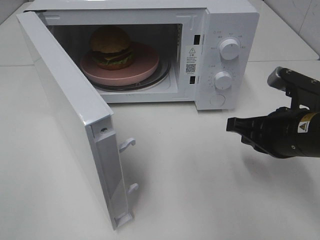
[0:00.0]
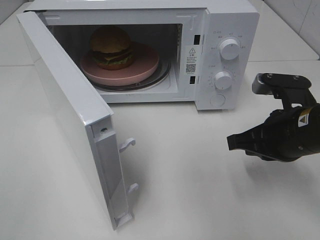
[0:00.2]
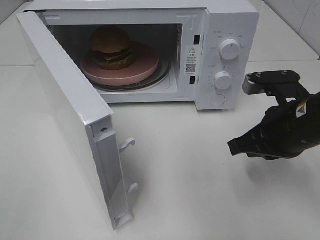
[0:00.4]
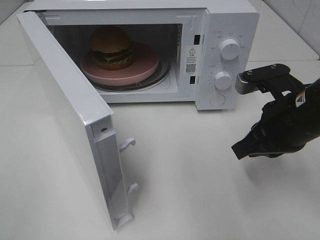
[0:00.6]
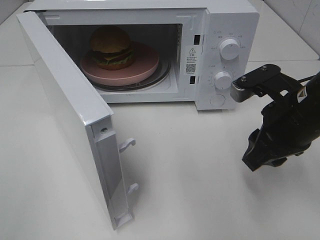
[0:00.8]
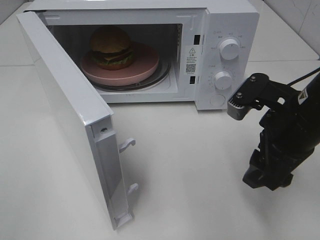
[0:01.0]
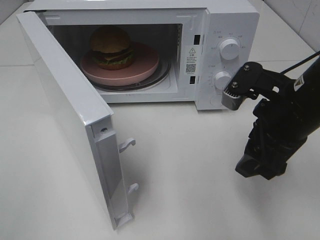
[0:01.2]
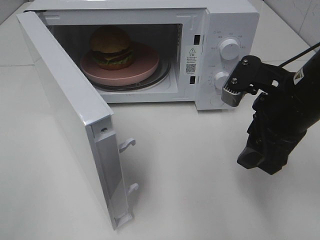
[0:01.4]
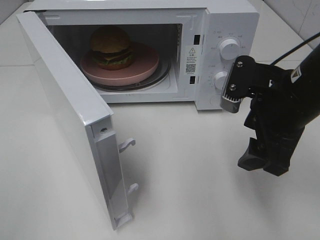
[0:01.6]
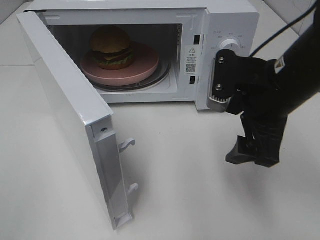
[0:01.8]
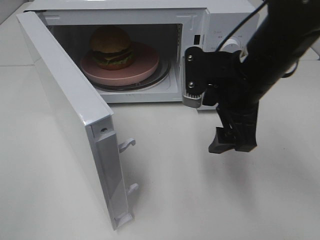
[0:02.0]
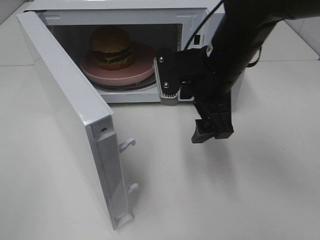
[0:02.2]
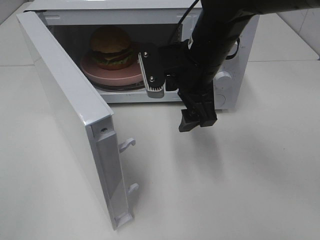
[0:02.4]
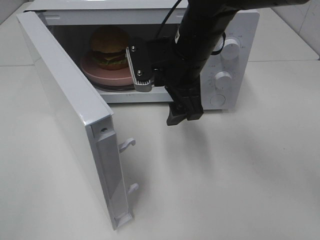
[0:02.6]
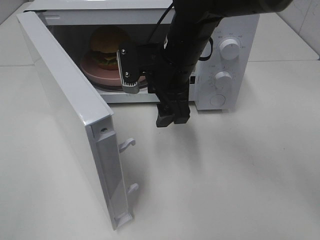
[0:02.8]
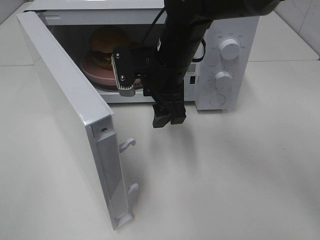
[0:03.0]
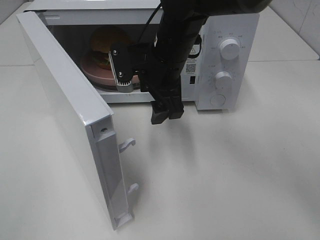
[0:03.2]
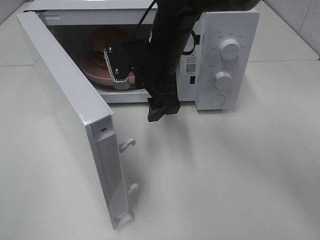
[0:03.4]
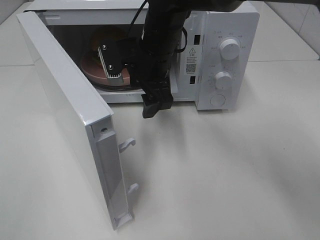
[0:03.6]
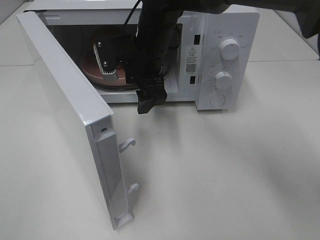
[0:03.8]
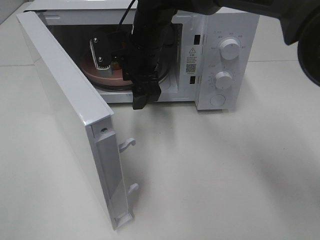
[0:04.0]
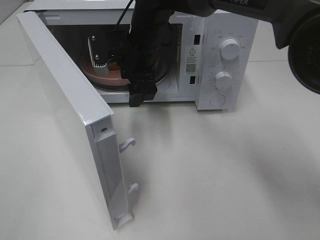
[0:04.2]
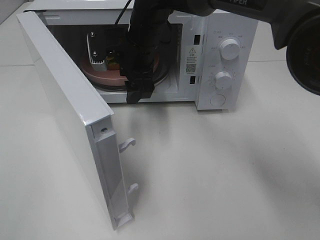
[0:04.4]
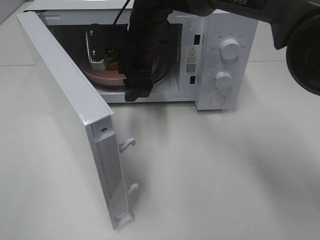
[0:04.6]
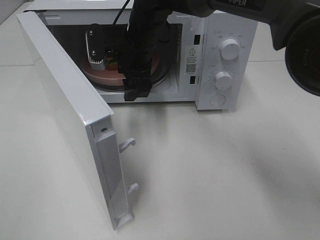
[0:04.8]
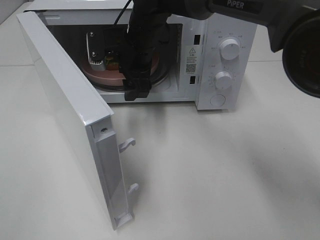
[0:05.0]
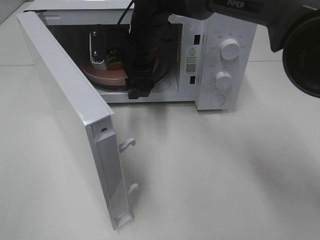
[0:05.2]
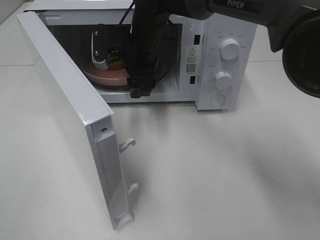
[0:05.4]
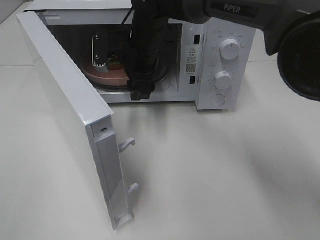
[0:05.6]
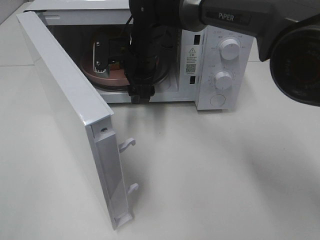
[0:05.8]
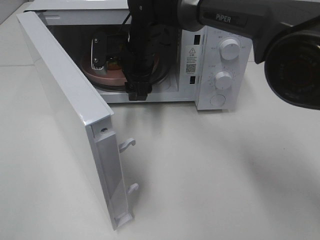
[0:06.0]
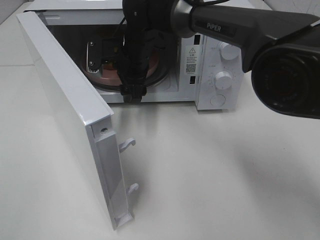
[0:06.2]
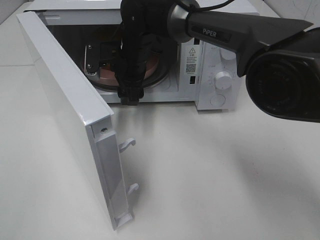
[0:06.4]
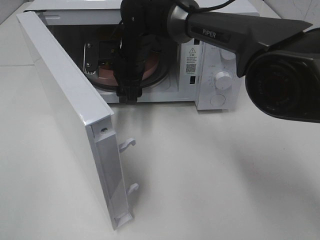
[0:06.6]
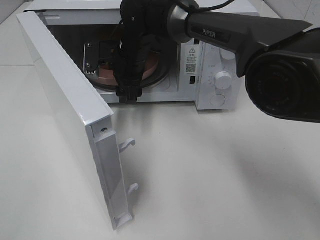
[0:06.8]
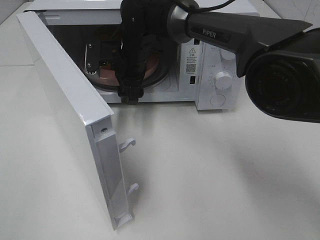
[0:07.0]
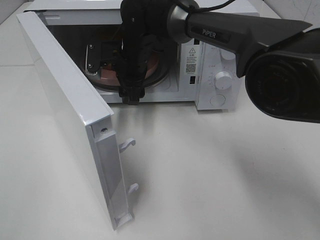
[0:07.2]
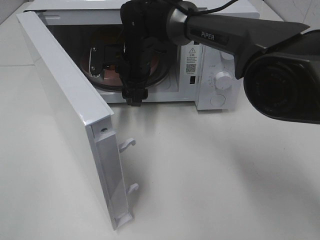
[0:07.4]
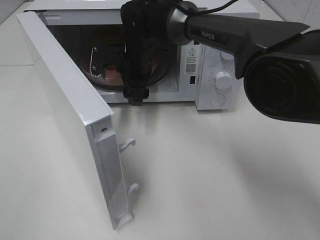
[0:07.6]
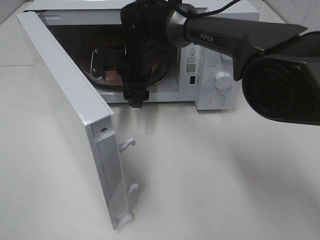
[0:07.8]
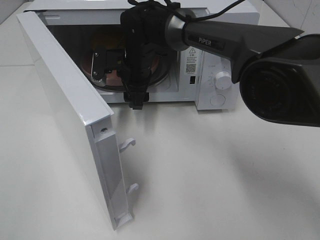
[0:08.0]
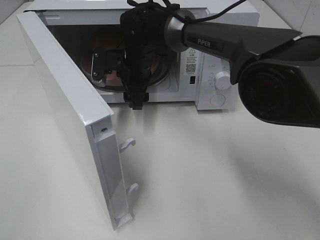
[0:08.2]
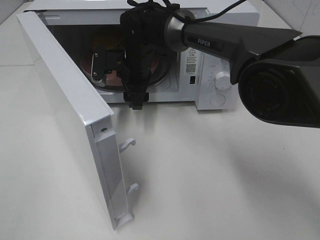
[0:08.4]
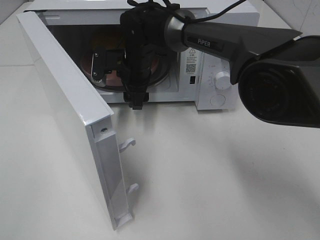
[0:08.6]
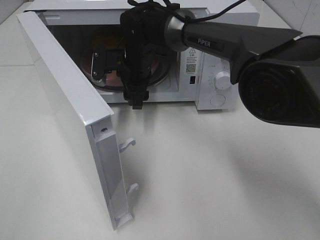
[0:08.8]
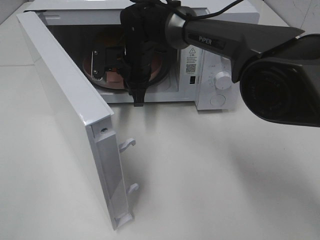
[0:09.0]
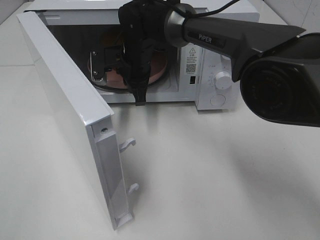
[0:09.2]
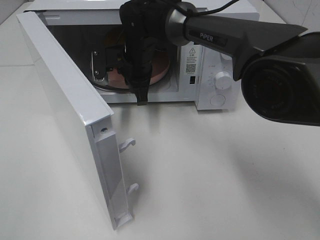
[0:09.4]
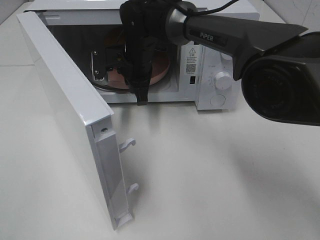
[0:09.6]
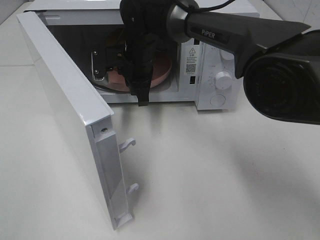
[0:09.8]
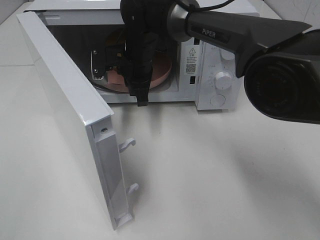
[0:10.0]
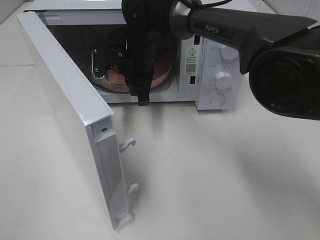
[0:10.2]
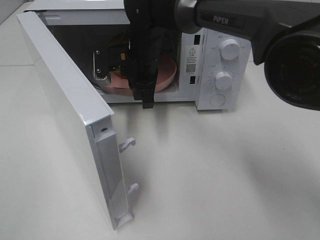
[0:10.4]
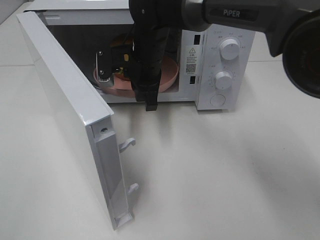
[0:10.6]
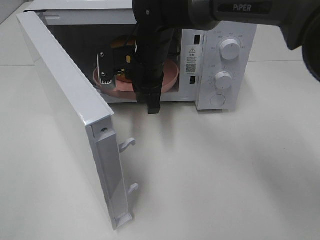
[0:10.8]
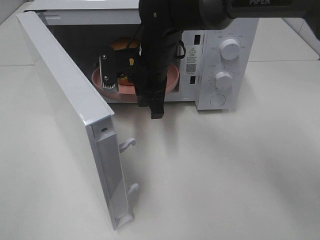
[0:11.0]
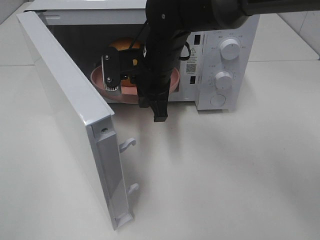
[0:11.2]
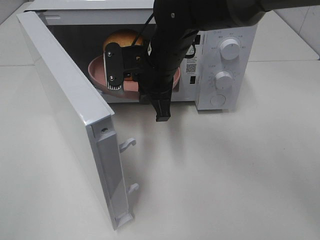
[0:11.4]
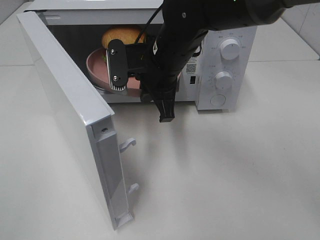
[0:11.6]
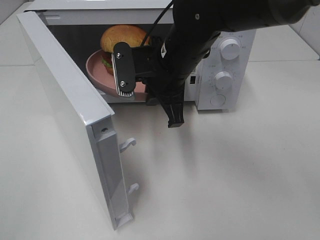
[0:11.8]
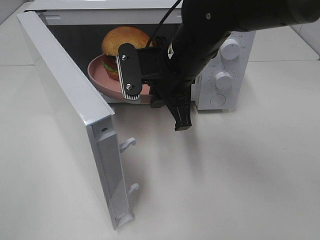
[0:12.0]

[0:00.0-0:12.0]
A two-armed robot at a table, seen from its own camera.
Task of the whole recording: Heat the burger.
Step, 0:00.0 to 0:09.2: Right hand: grab the plate with the hamburger.
0:00.0 to 0:01.6: The right gripper goes some 5 cm upward, and opens up.
0:01.6 to 0:03.0: The right gripper travels to the left and forward by roughly 20 cm.
0:03.0 to 0:04.4: The right gripper travels forward by roughly 5 cm.
0:04.4 to 0:07.6: The grippers move only a little.
0:07.6 to 0:09.0: The right gripper closes.
0:09.0 to 0:10.4: The grippers stay close to where they were, moving slightly.
0:10.4 to 0:12.0: The right gripper goes about 10 cm backward and to the right.

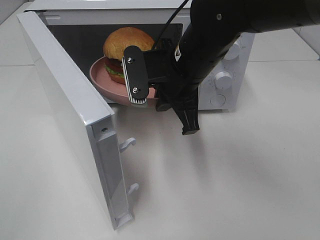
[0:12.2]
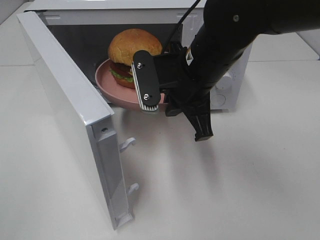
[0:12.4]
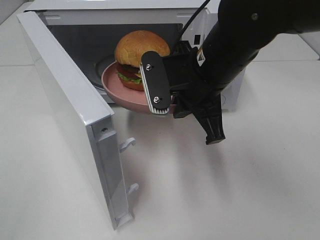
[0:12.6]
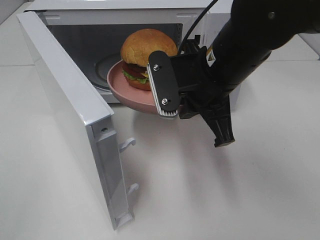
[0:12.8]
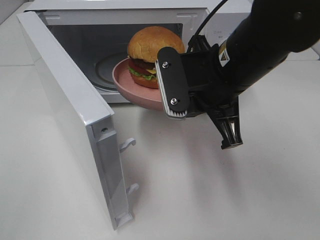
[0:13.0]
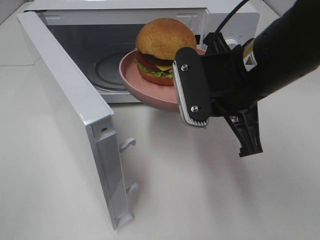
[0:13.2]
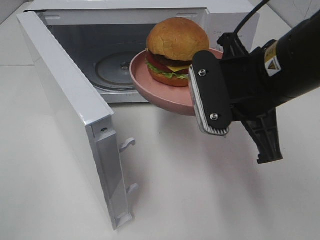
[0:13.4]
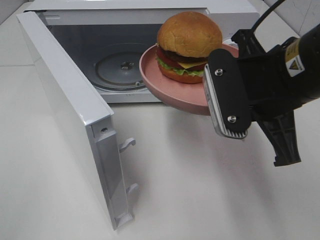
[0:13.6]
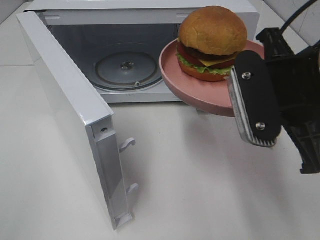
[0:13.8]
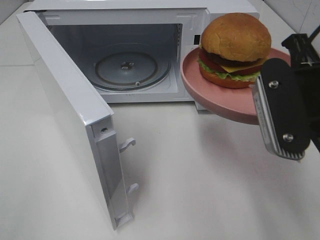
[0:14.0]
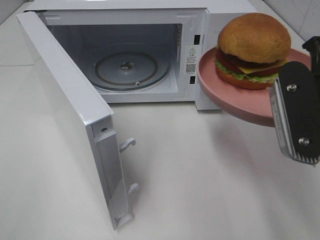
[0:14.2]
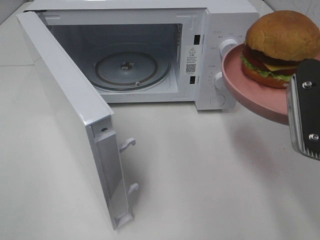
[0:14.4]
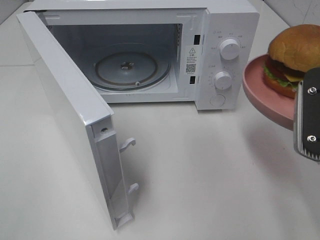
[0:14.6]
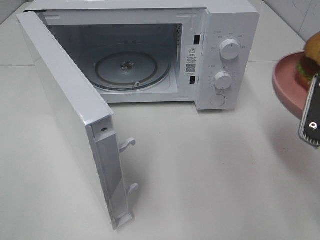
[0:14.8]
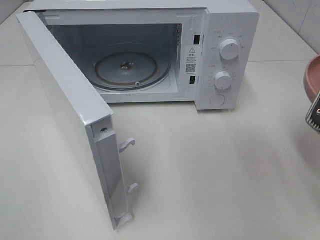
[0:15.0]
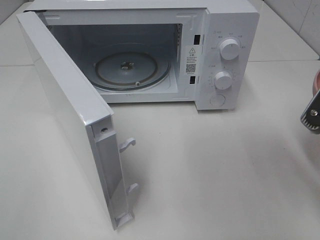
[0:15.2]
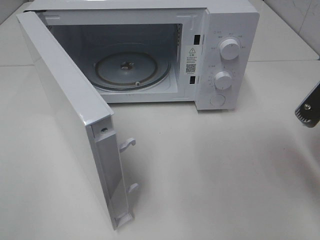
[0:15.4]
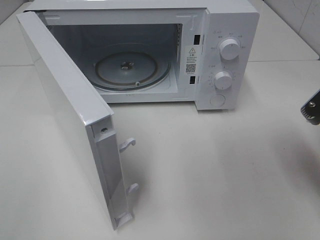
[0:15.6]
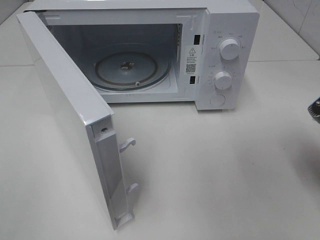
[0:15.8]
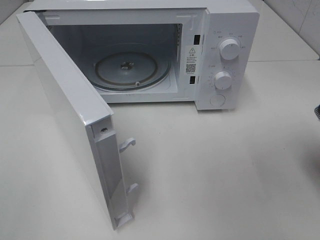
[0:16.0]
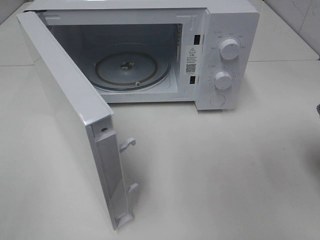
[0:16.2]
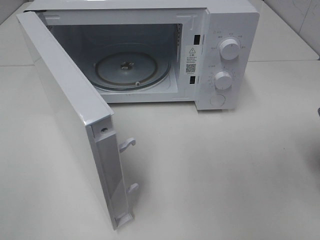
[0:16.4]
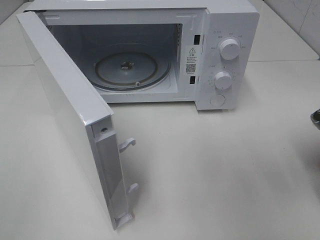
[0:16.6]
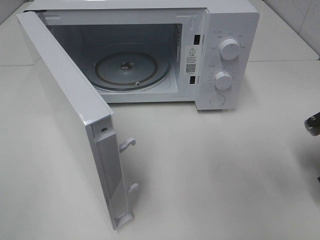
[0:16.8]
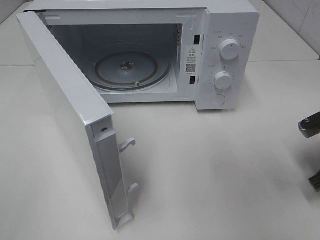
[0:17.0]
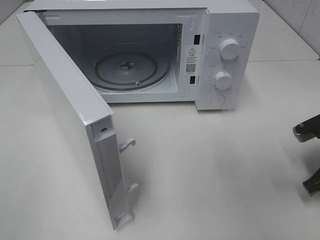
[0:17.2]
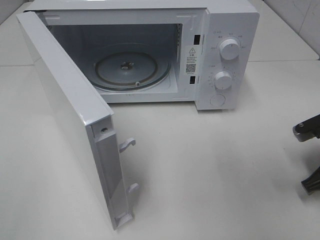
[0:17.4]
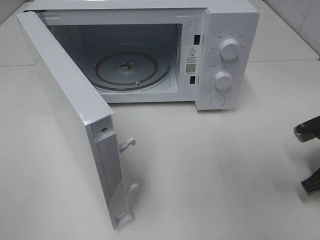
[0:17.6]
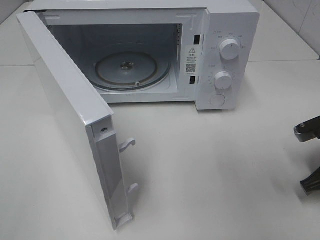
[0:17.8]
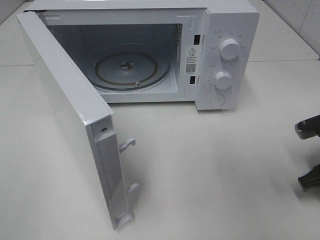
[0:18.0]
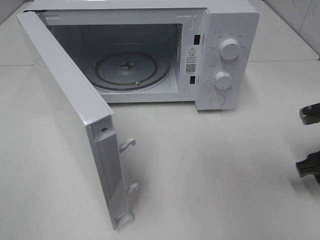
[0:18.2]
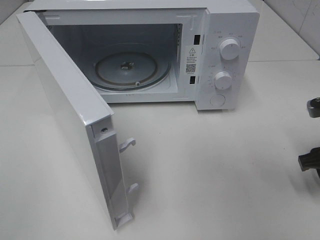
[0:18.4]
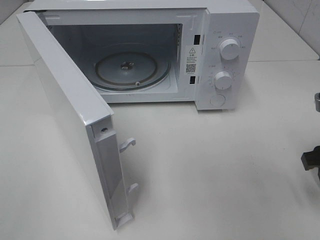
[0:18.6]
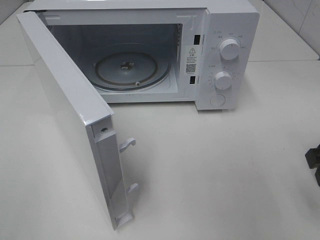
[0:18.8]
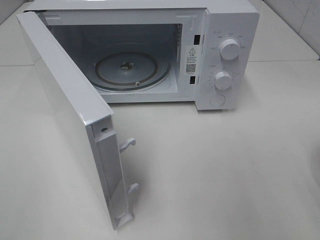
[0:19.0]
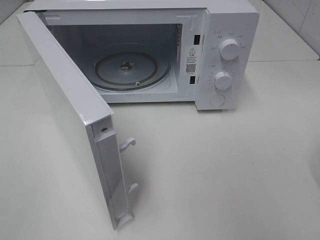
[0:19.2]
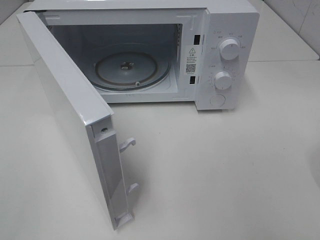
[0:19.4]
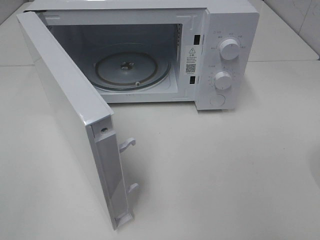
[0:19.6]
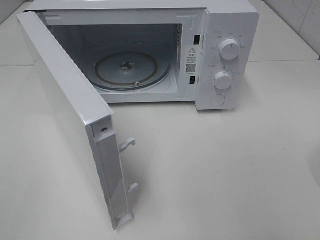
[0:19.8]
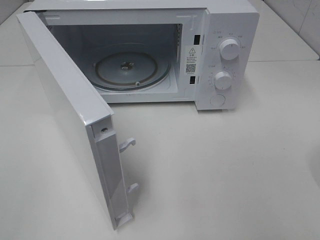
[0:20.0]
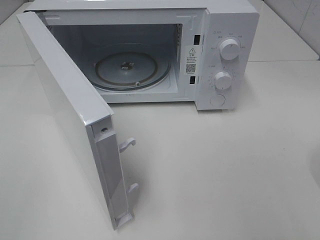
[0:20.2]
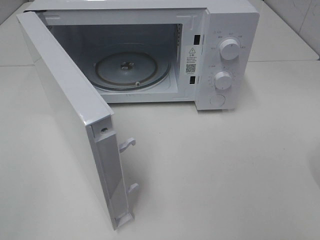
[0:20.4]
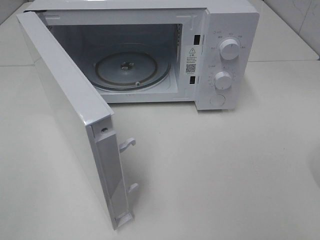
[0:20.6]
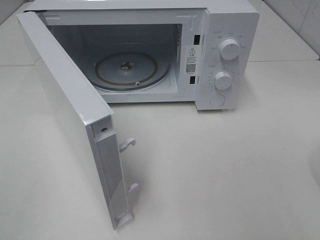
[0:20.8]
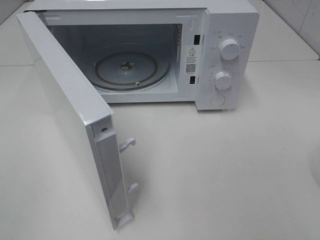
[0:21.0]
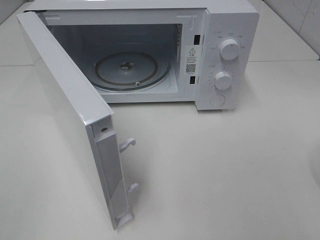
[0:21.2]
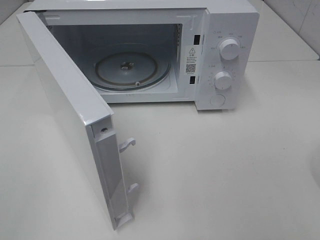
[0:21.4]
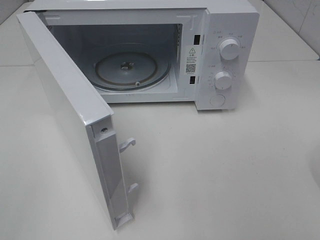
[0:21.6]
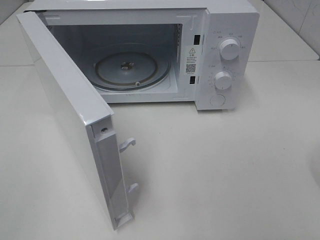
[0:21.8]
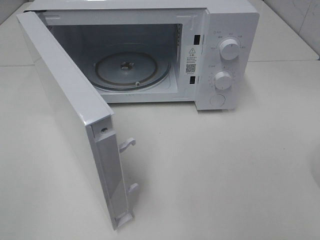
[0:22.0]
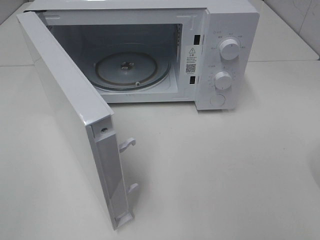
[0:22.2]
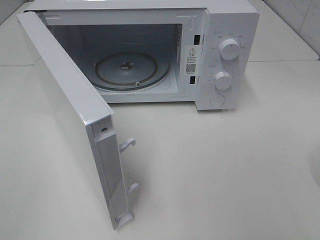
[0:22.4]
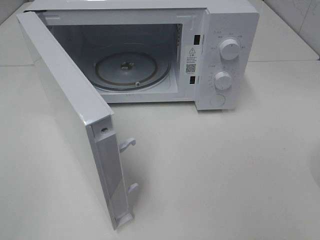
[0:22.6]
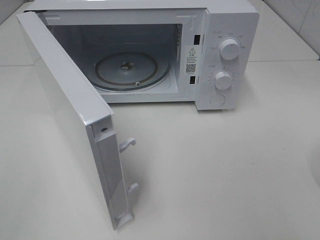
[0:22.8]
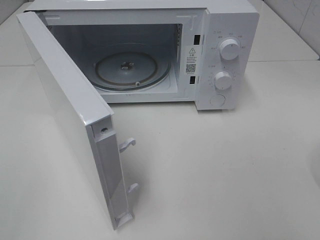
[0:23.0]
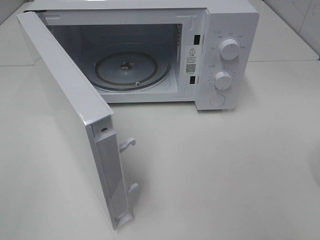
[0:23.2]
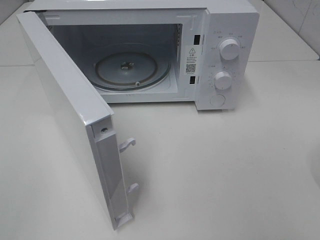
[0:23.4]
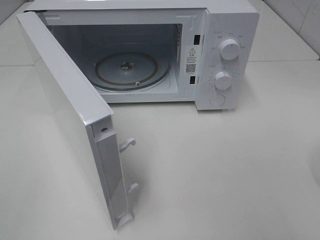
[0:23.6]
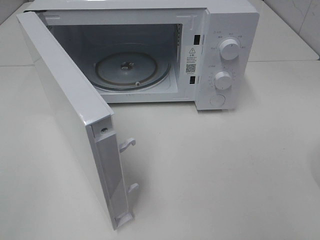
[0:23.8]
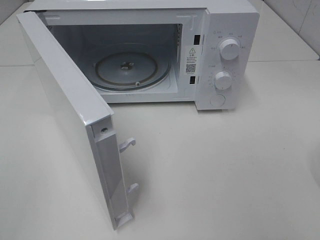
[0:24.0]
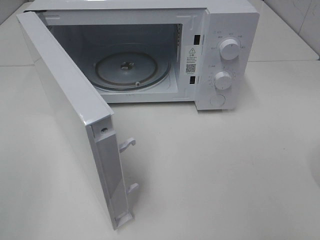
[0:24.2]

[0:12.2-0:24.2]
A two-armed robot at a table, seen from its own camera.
Task of the whole recording: Heat the burger.
Step, 0:12.2 to 0:19.6: Right hand: place the plate on the table.
0:12.2 to 0:13.8: The right gripper is displaced backward, to the right and upward by roughly 15 cm.
0:13.8 to 0:15.2: The right gripper heads to the right, covering some 10 cm.
0:15.2 to 0:16.6: The right gripper is displaced downward, to the right and forward by approximately 10 cm.
0:16.6 to 0:18.2: The right gripper opens its fingers.
0:18.2 to 0:19.8: The right gripper goes about 25 cm backward and upward.
